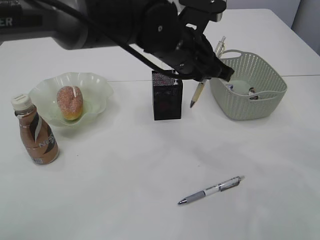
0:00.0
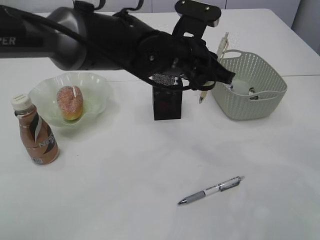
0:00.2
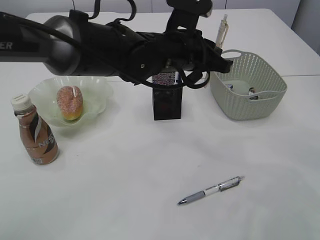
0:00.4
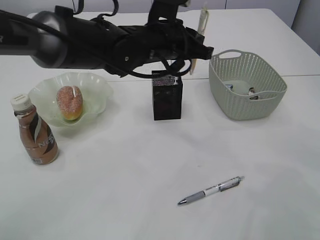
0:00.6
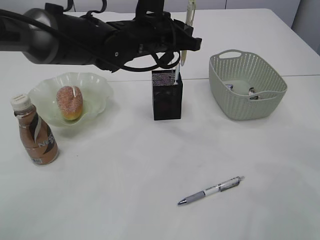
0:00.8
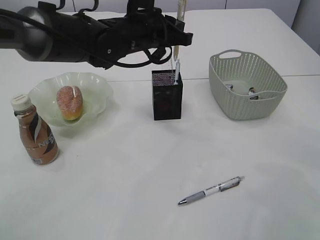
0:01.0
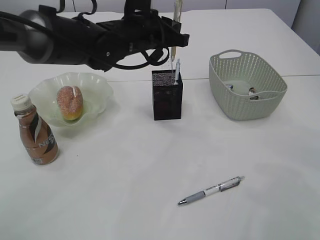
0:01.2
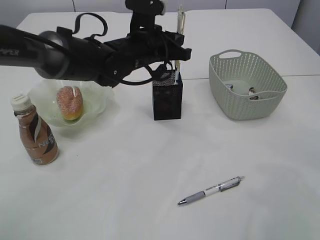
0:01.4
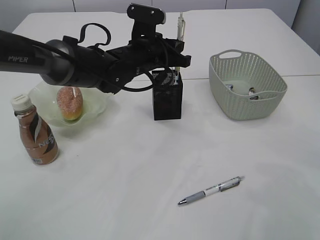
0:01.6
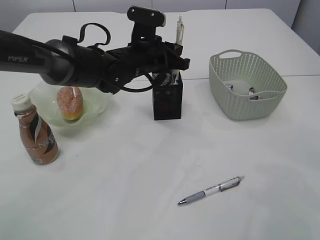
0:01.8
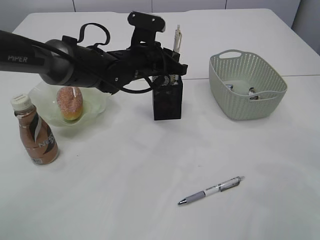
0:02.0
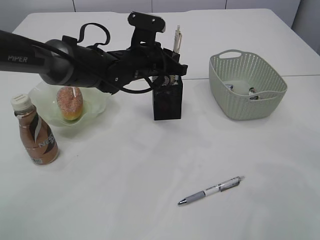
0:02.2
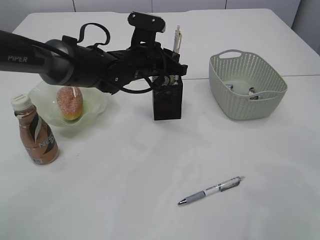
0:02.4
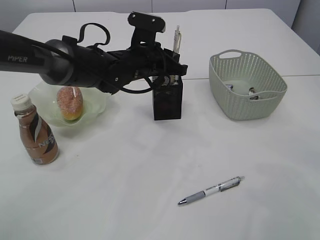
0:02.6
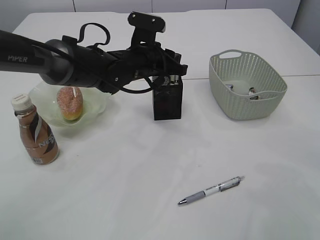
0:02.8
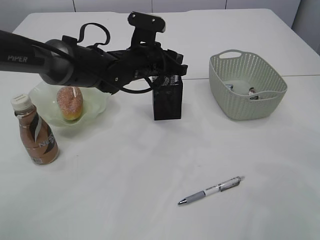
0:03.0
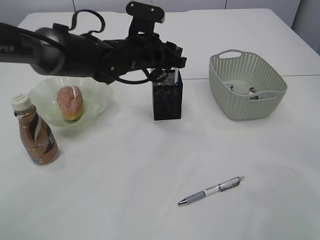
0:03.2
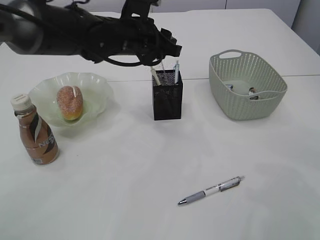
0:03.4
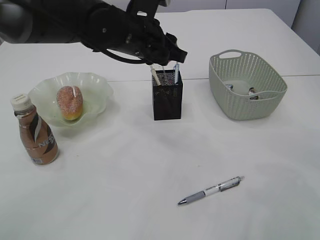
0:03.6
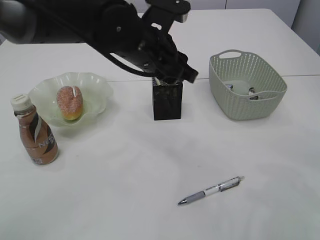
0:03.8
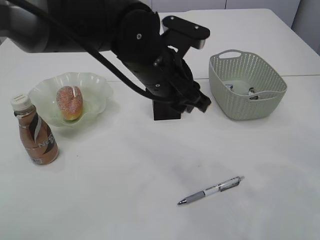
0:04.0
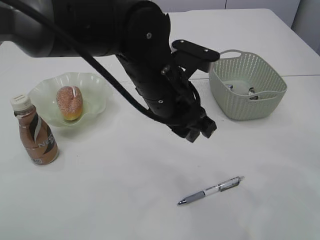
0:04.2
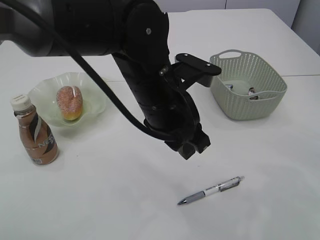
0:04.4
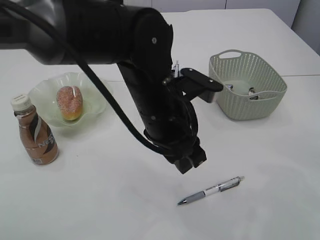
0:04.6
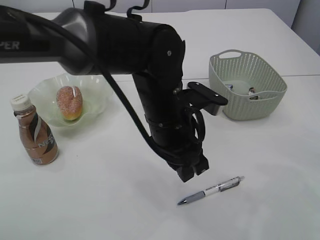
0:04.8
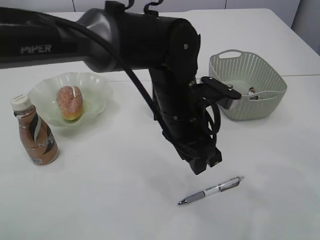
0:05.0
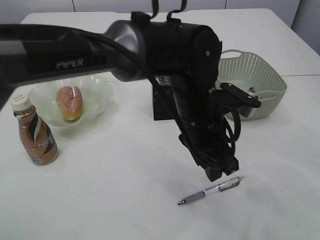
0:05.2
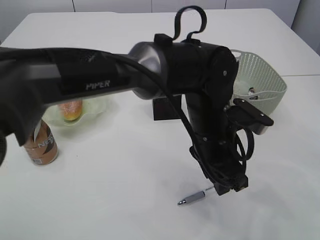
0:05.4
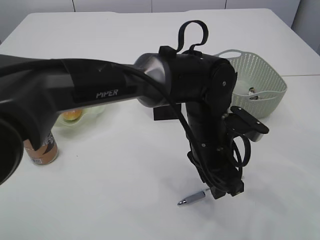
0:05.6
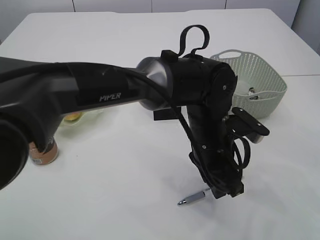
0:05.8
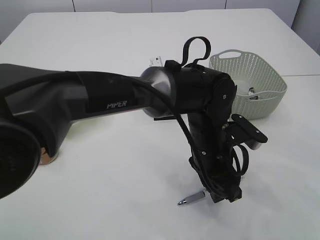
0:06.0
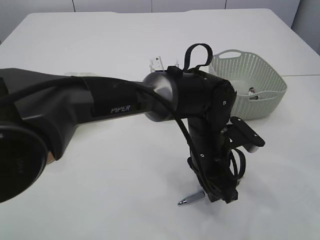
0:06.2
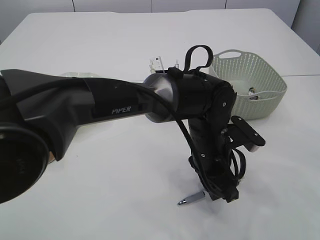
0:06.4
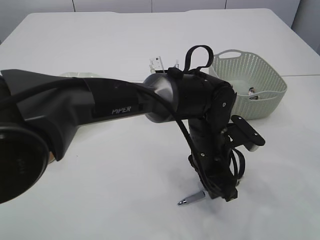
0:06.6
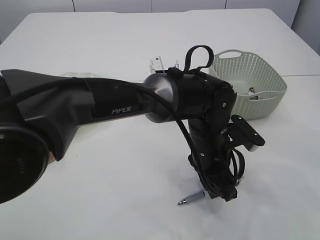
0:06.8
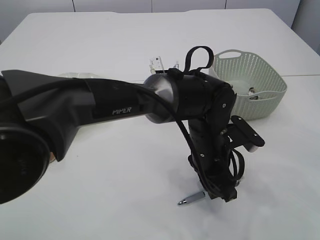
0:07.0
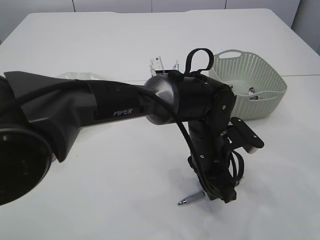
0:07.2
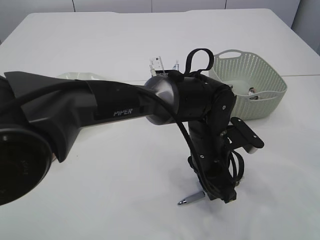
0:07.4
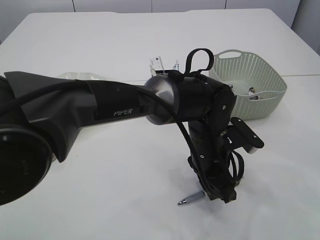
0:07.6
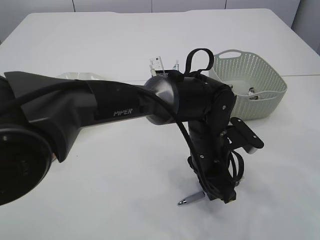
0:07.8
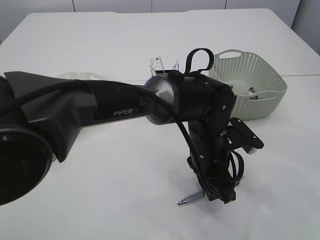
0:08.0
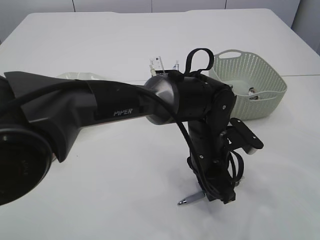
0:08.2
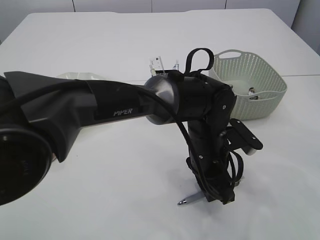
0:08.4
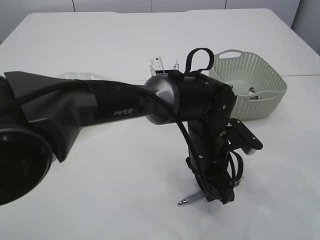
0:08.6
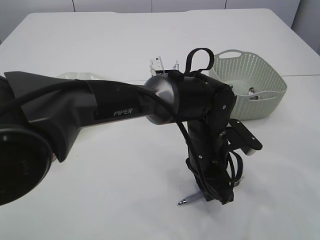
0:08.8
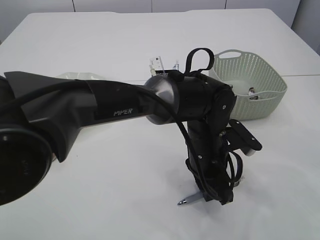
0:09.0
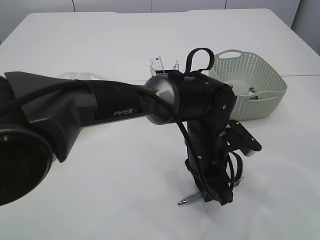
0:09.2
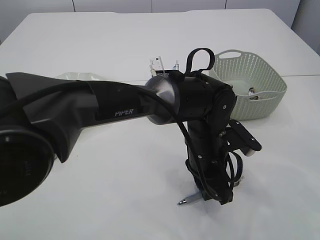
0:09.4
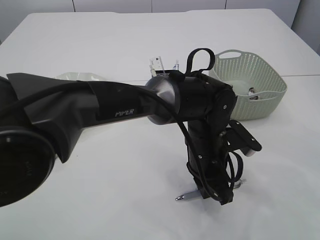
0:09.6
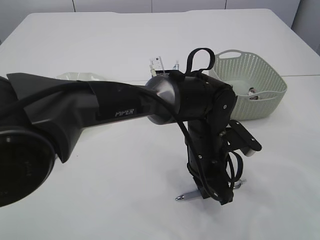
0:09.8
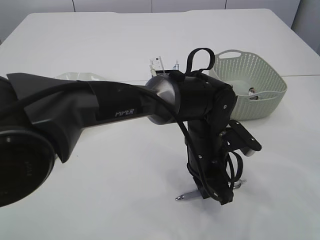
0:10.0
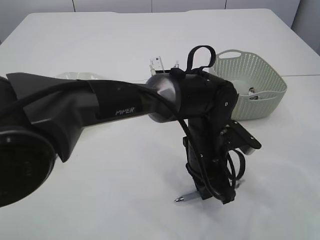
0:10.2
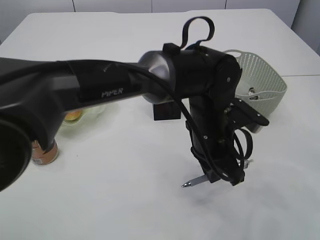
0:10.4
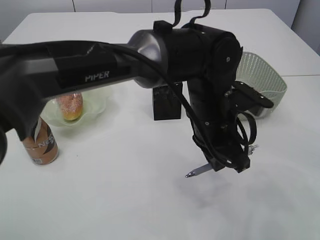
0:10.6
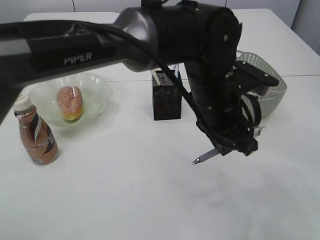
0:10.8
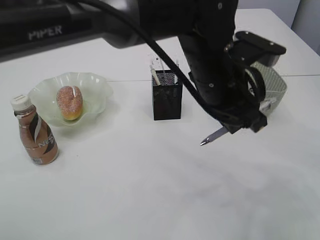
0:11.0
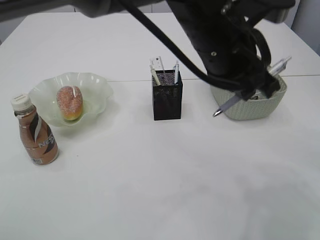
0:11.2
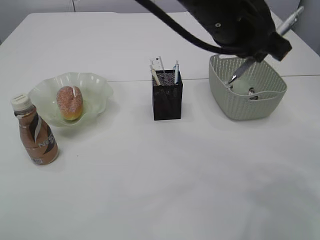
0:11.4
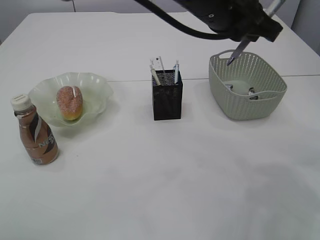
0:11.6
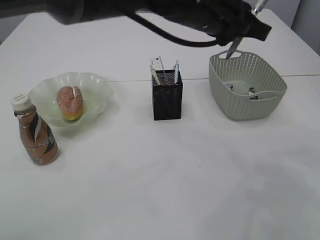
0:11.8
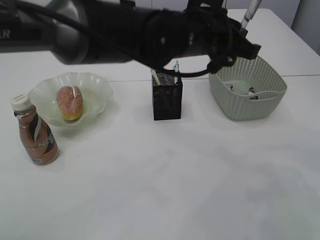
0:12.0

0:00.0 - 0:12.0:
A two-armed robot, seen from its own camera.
Step, 0:00.0 - 0:03.2: Place the pen into the pen holder.
Step, 0:03.4 - 0:10.8: Pick up the pen with left arm.
0:00.0 - 0:01.6: The left gripper moves forward, to the left and downward, approximately 10 cm.
0:01.6 - 0:03.0: The left gripper opens.
0:03.0 - 0:04.4: The left gripper travels backward by about 15 cm.
0:04.4 - 0:06.0: The left gripper moves downward and to the right, about 15 cm.
0:06.0 - 0:07.6: The grippers move only a little.
0:07.6 - 0:09.0: Both grippers stay put.
0:09.0 - 0:10.4: The left gripper closes its fingers.
0:10.4 - 0:12.0: The left gripper travels upward and forward by some 15 cm.

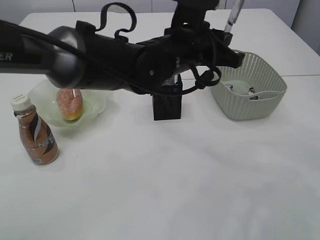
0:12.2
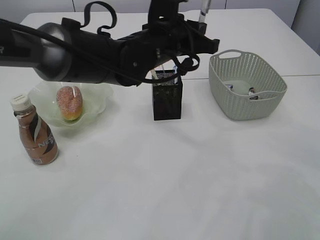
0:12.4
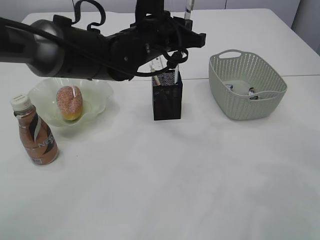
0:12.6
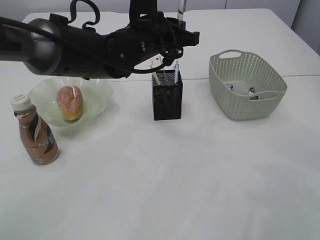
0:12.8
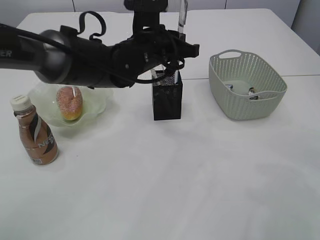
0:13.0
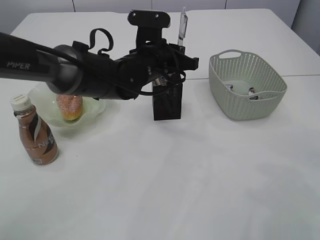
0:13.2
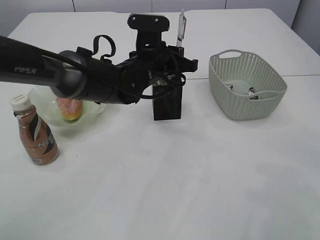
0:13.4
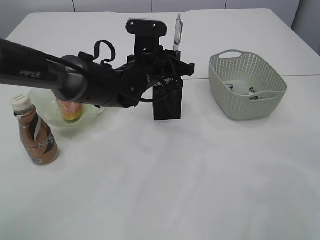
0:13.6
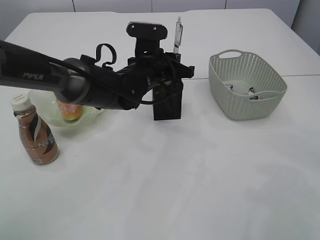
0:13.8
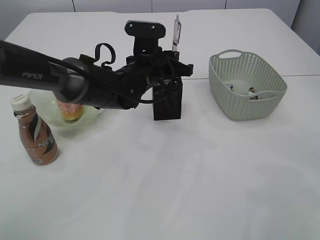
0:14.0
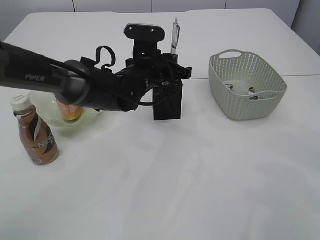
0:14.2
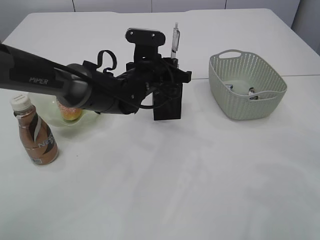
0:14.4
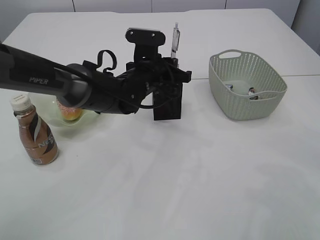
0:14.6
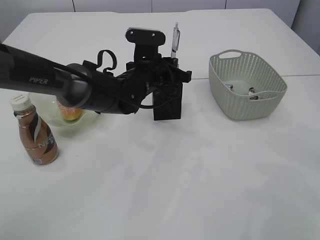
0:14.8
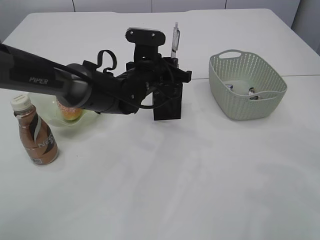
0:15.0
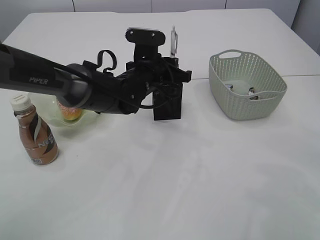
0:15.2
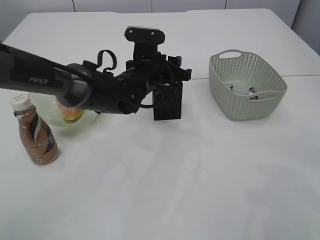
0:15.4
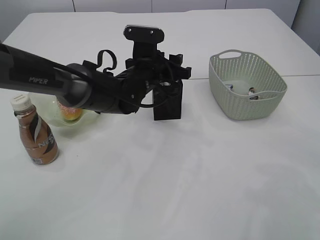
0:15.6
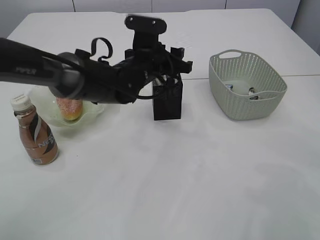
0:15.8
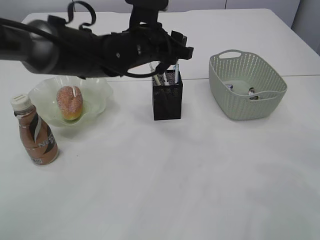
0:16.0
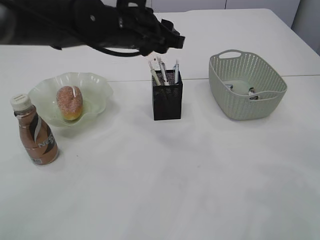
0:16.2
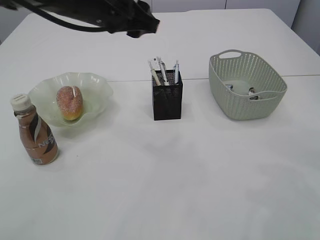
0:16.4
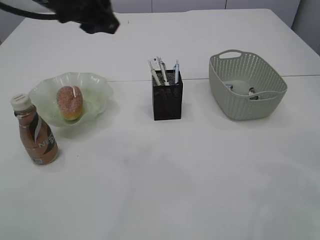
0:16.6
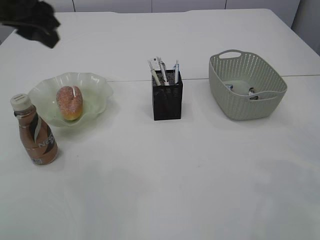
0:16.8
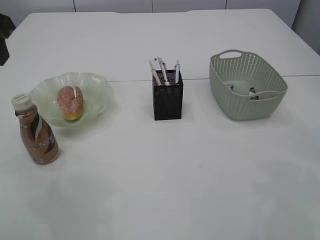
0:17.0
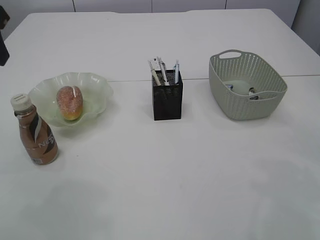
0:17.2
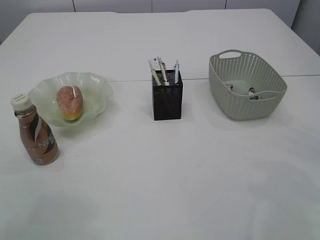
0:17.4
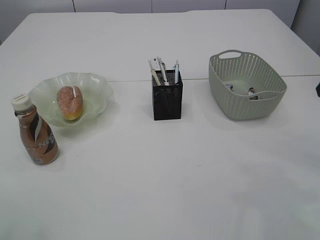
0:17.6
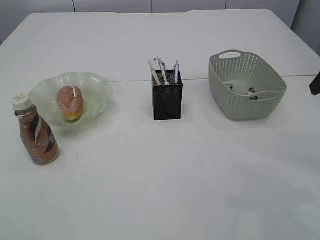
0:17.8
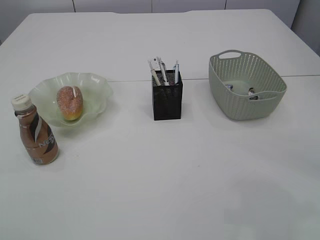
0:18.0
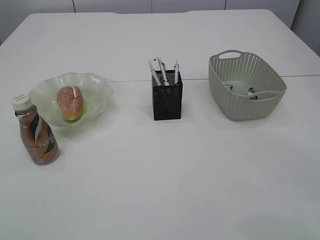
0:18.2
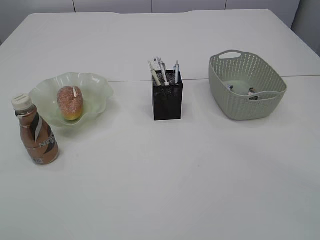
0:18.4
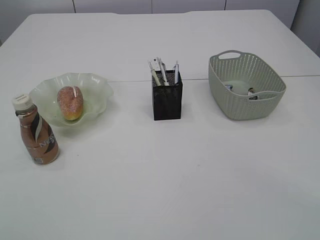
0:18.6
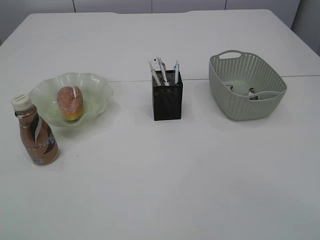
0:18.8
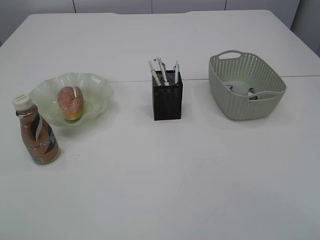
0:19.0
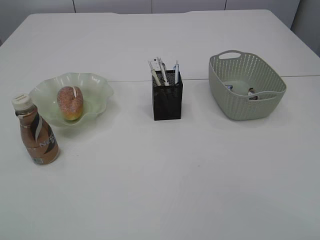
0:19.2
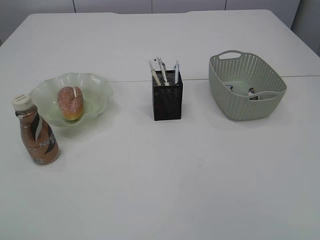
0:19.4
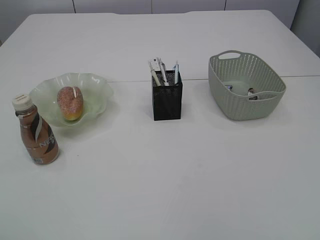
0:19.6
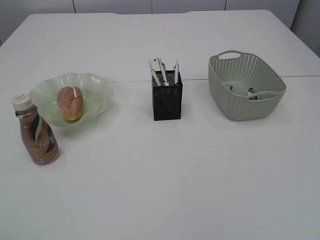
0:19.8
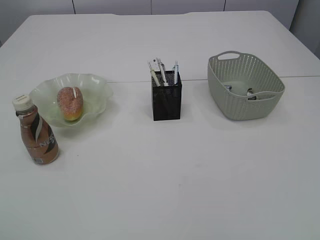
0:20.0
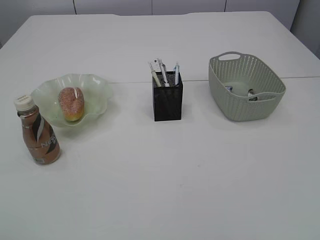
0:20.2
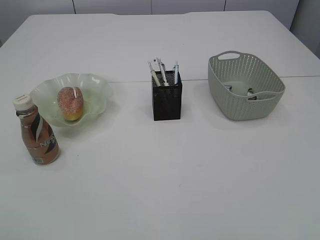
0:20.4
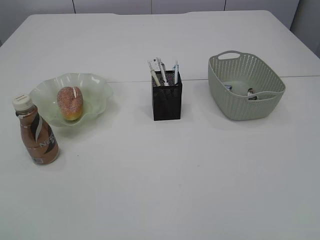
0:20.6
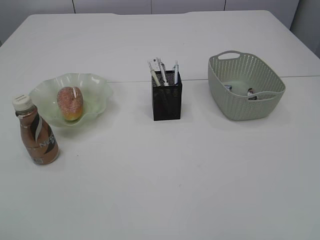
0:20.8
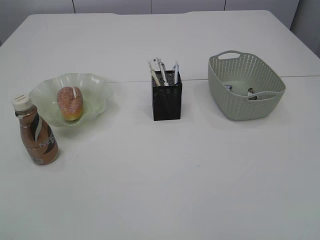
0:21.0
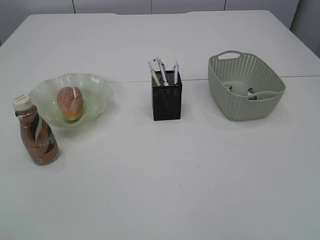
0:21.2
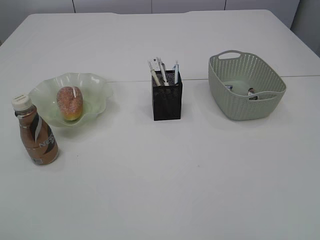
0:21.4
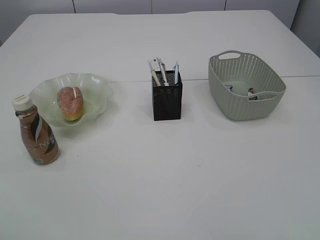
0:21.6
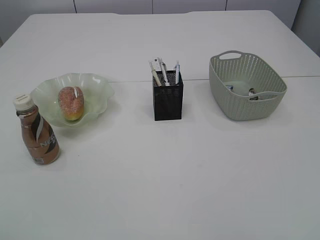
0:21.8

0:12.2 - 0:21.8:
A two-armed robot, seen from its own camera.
Step, 0:12.2 - 0:16.0: Place the pen into the pen holder.
0:12.2 - 0:13.8: The left gripper goes about 10 cm downward, forward and to the left.
0:13.8 - 0:15.4: The left gripper opens its fingers.
0:15.4 - 0:17.0: The left gripper heads upward, to the left and backward, covering about 30 cm.
0:17.0 - 0:18.6: The right gripper moves backward, some 20 cm, while the left gripper heads backward and upward, covering some 25 cm.
0:18.6 - 0:20.2: The right gripper goes some 20 cm backward. Meanwhile the left gripper moves backward and downward, some 20 cm.
0:20.2 - 0:21.8: The right gripper moves downward, about 5 cm. The left gripper moves downward and forward, approximately 10 cm.

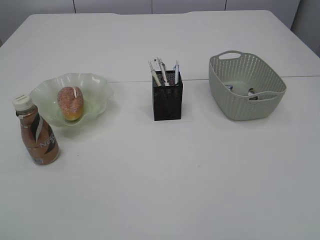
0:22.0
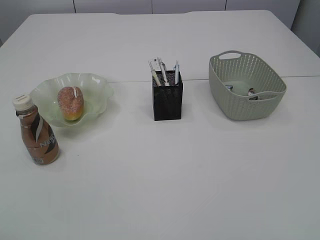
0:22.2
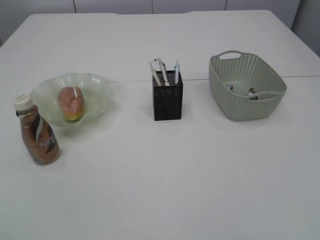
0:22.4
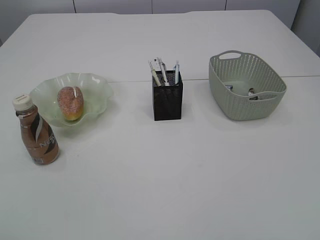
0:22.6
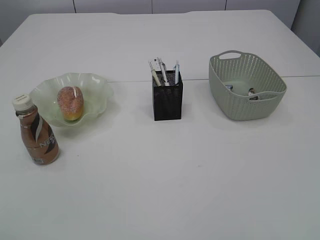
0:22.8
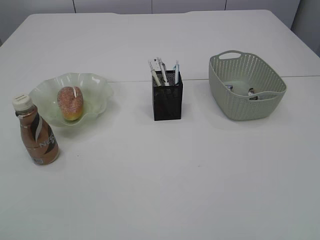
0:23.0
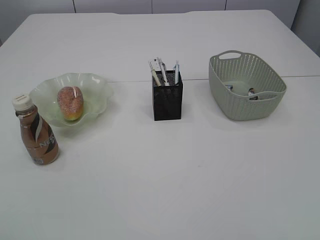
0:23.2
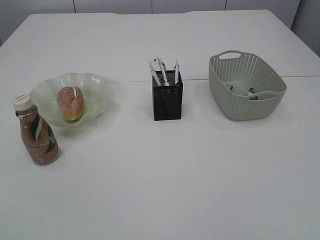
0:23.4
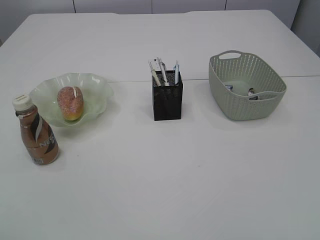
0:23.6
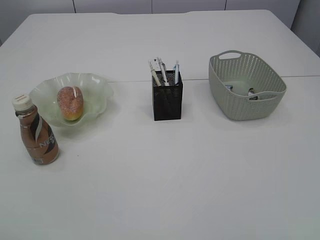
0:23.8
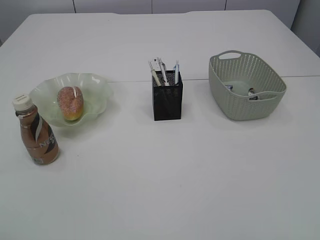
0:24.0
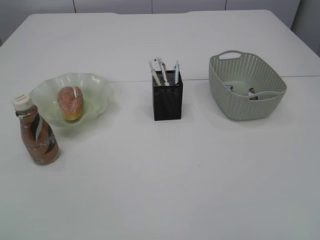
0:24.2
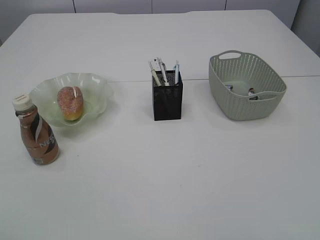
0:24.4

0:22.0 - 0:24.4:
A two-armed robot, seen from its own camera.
0:22.0 - 0:23.2: Both grippers stay about where they are.
0:23.2 - 0:24.4: Neither gripper changes place.
